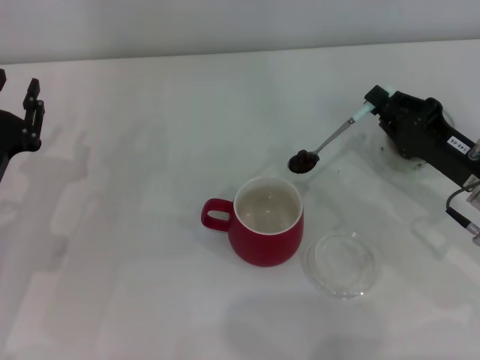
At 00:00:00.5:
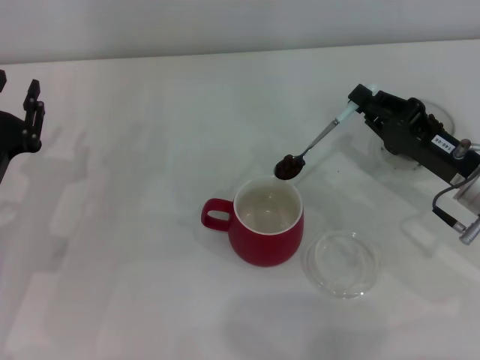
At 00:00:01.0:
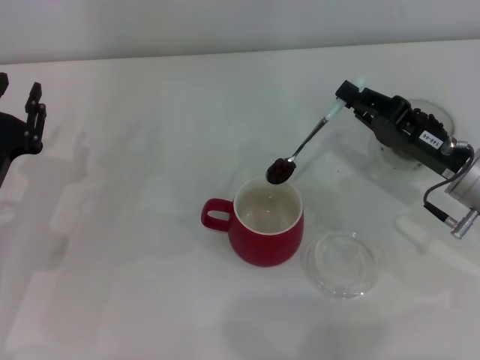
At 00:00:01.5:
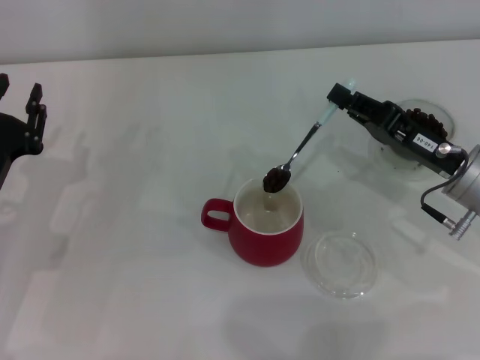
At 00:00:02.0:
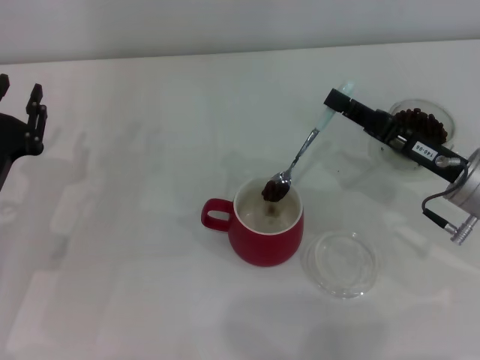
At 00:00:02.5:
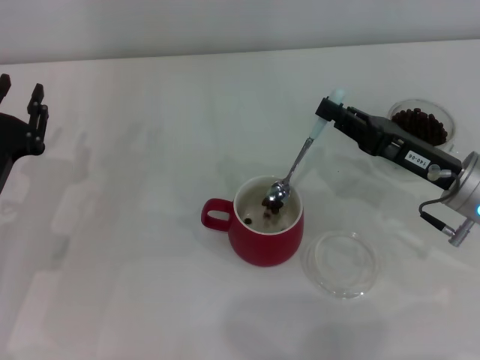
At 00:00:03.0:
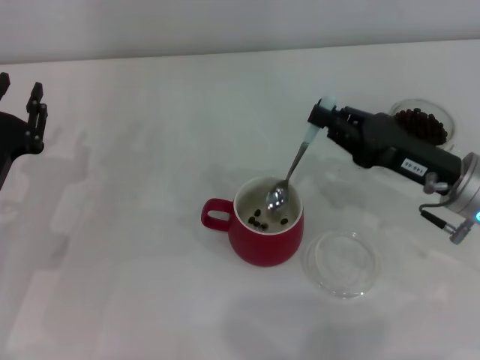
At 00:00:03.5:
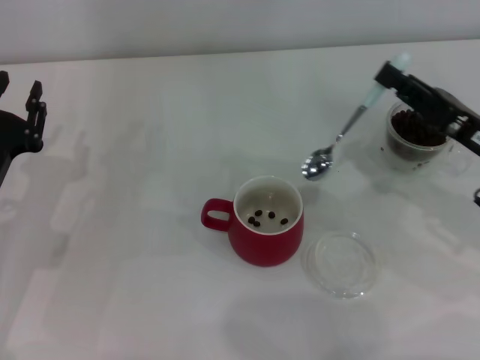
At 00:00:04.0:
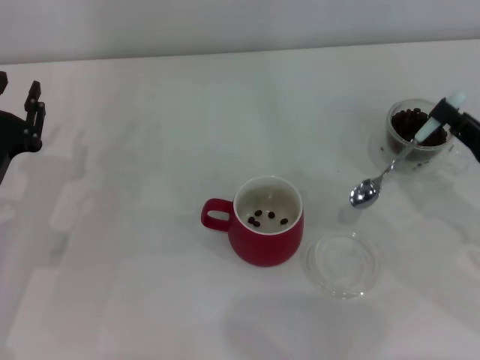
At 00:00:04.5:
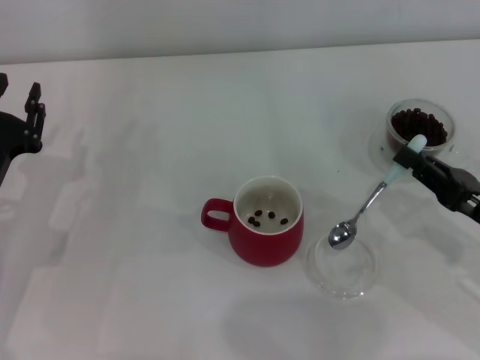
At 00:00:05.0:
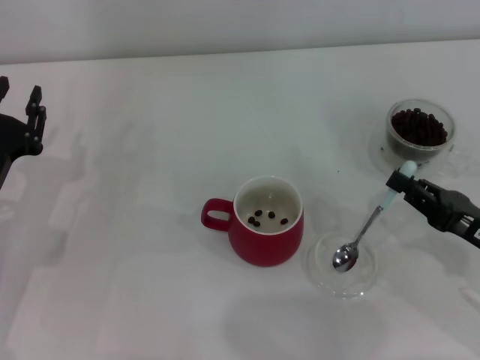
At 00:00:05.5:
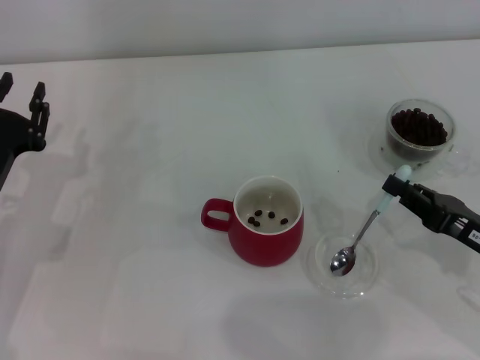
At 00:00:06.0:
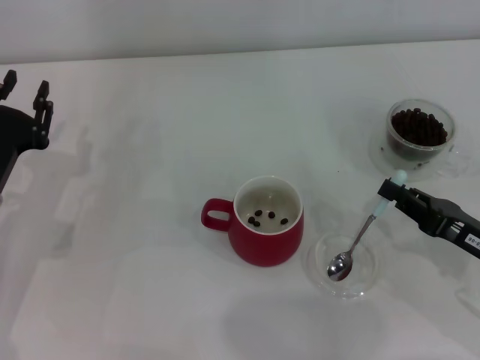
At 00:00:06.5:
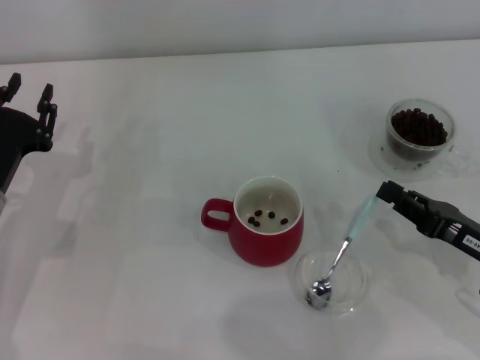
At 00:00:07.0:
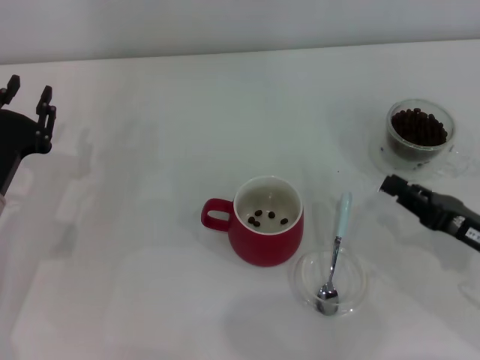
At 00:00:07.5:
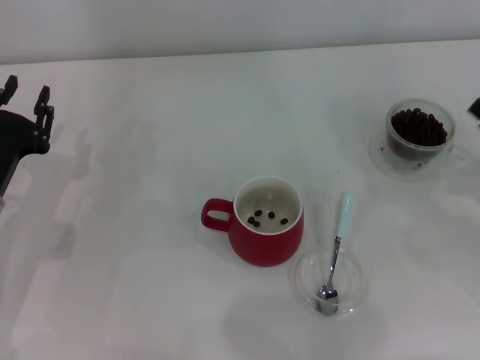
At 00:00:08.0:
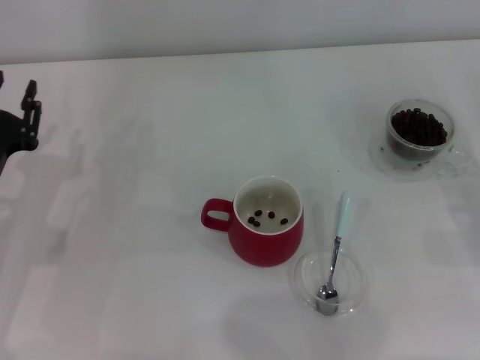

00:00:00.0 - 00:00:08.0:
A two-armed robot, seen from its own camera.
Task of the whole recording: Use a blue spoon to take out the coffee beans from the glass and pour them into the red cup.
Step, 00:00:00.0 - 00:00:03.0: Scoop a spoonful of beans into the cup with the right gripper.
Step, 00:00:03.5 - 00:00:06.5: Place the spoon back in its original place with the right gripper.
00:00:02.0 - 00:00:04.0: The right gripper heads to the right and backward, covering about 10 cm.
00:00:04.0 - 00:00:06.0: The right gripper ends up about 5 cm from where it was.
00:00:06.0 - 00:00:08.0: The right gripper heads to the right, covering about 10 cm.

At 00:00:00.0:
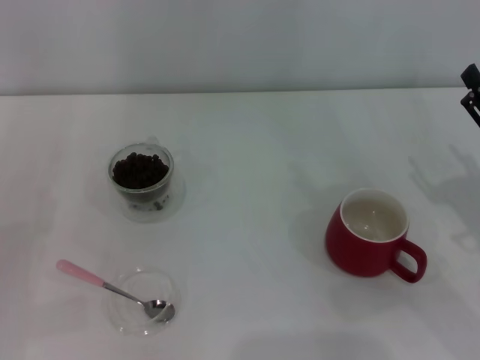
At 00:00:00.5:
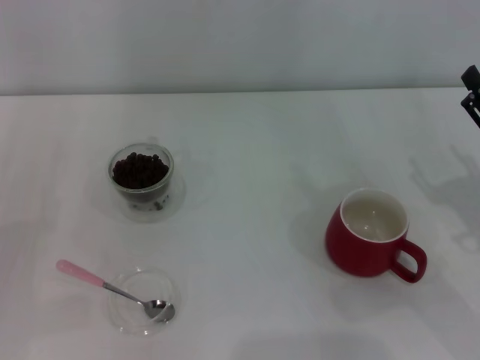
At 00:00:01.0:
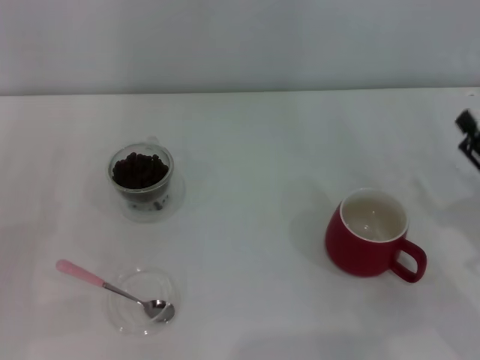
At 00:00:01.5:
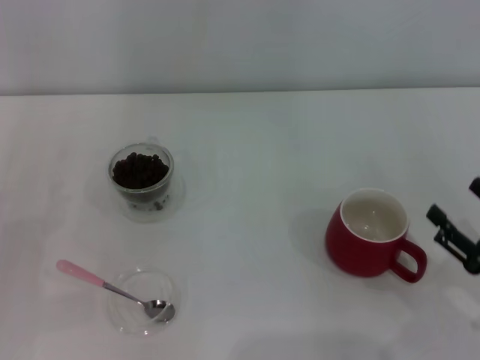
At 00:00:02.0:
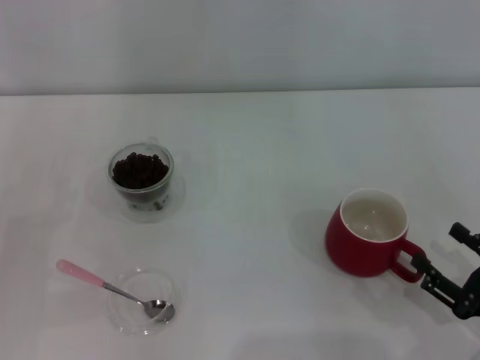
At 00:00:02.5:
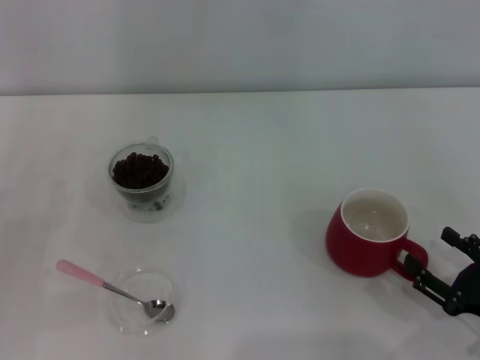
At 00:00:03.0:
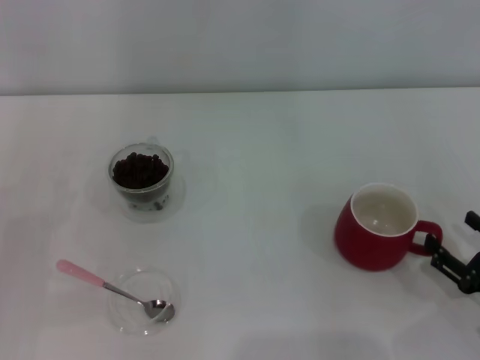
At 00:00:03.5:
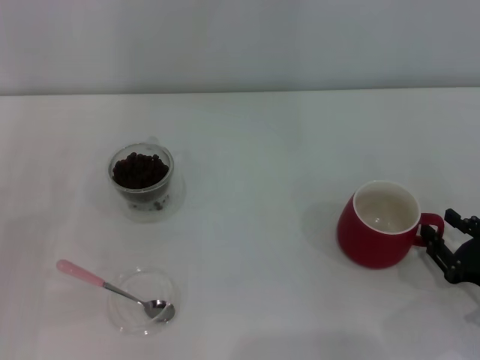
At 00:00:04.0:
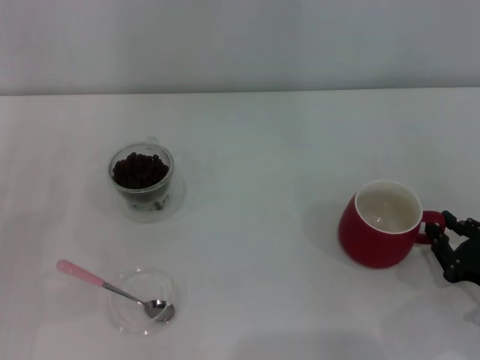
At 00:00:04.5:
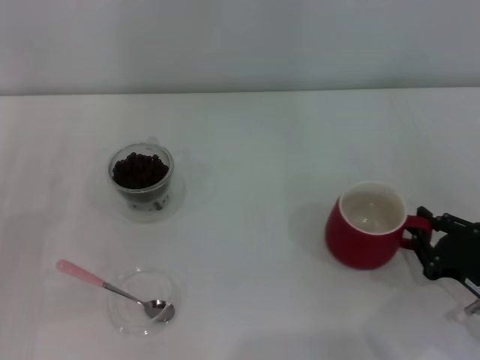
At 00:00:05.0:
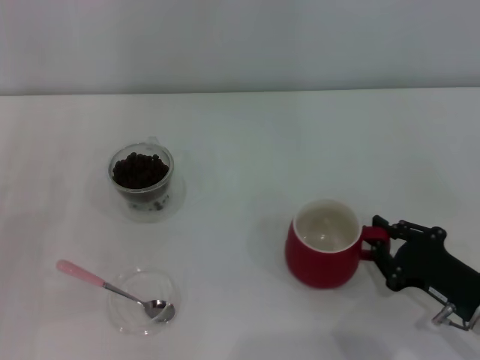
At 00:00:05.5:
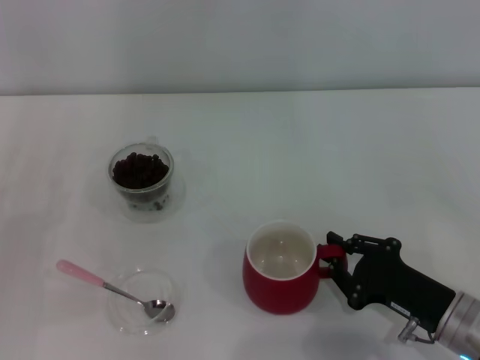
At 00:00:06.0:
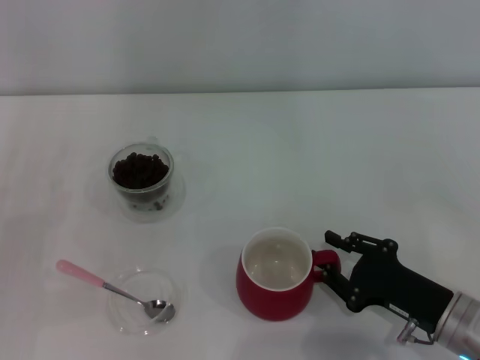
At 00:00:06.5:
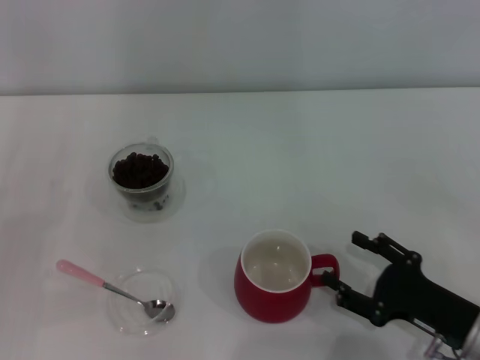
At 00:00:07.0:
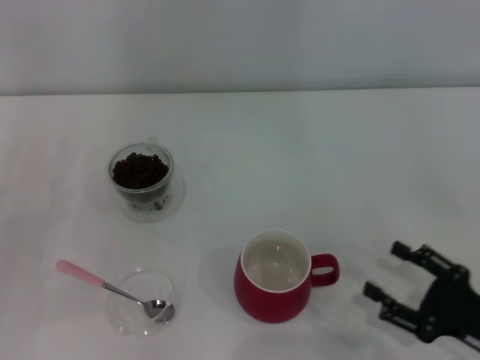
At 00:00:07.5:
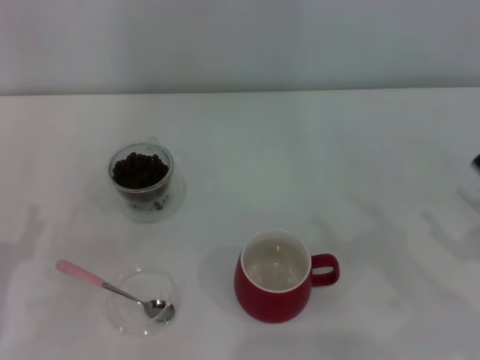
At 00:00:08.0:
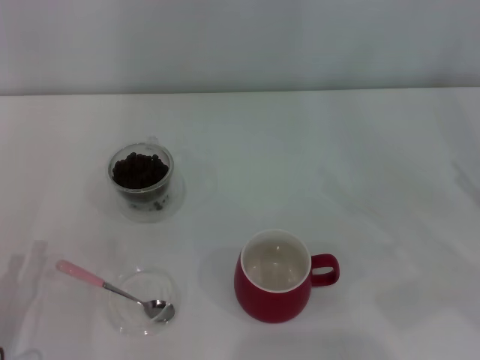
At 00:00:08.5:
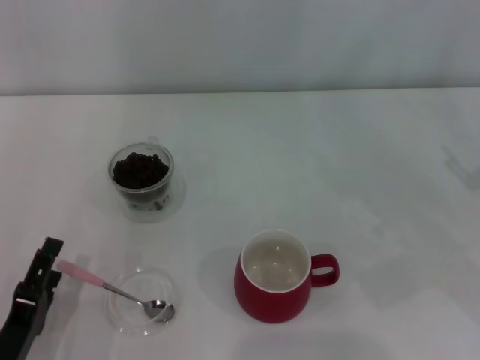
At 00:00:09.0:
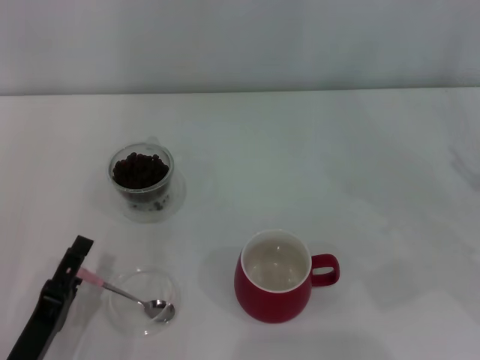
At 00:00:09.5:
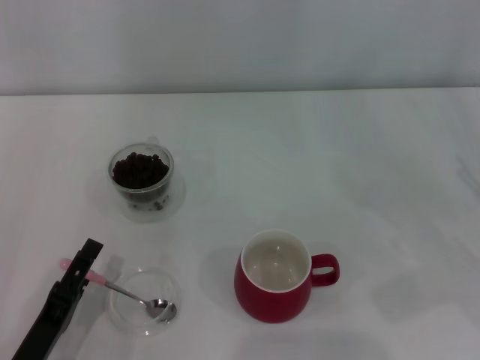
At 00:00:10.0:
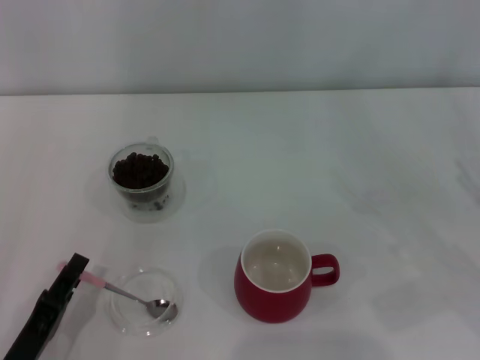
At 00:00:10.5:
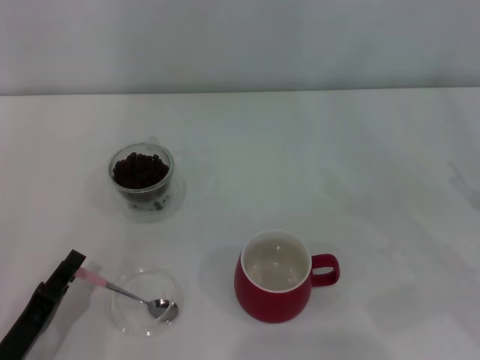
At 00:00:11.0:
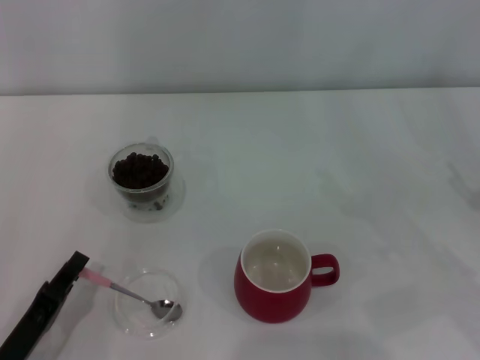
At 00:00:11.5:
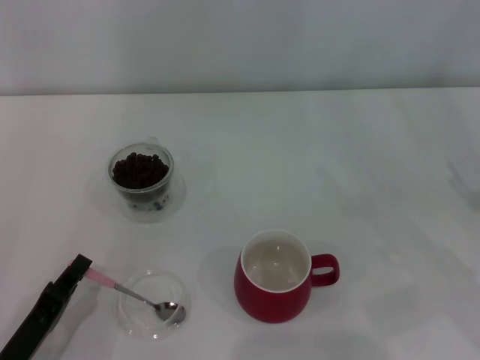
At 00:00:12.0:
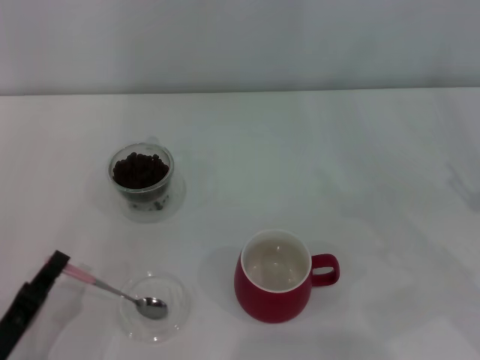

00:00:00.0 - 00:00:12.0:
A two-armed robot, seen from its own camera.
Task of the whole recording: Use a pink spoon to take out the coffee beans from the glass and pour them into the red cup.
Step, 00:00:00.0 - 00:00:06.5: Move the cup to the center of view with the left gripper.
00:00:00.0 - 00:00:02.0: The right gripper travels backward and downward by roughly 10 cm.
00:00:02.0 - 00:00:04.0: The right gripper closes up.
00:00:04.0 - 00:00:06.0: The right gripper goes about 10 cm to the left.
00:00:06.0 - 00:00:08.0: The left gripper is displaced backward and to the right by approximately 10 cm. Meanwhile the right gripper travels to the right and upward by roughly 15 cm, and opens.
00:00:08.0 - 00:00:10.0: There are only small adjustments of the grippers.
00:00:10.0 - 00:00:12.0: The left gripper closes its fingers.

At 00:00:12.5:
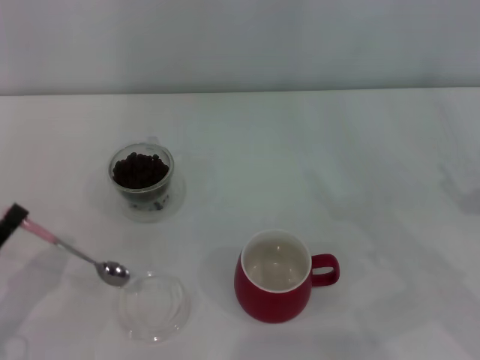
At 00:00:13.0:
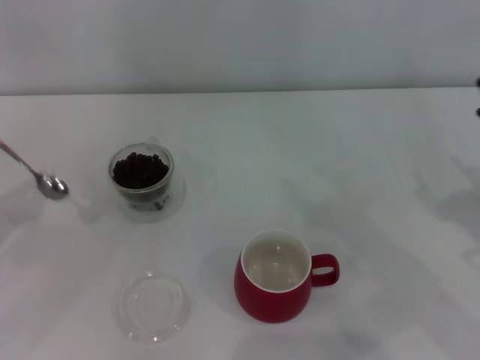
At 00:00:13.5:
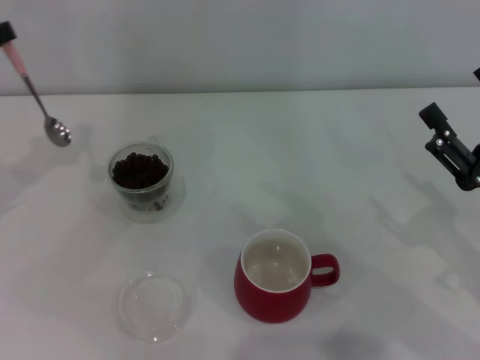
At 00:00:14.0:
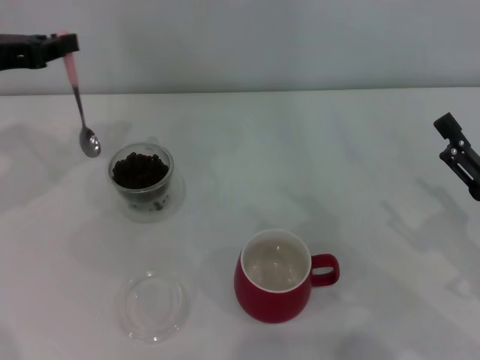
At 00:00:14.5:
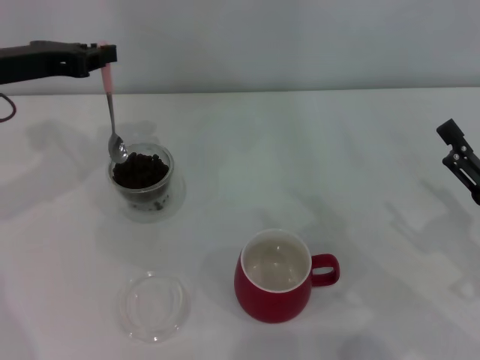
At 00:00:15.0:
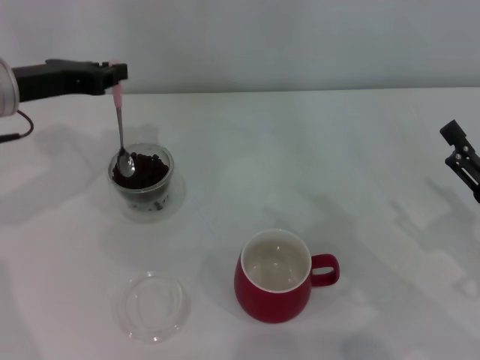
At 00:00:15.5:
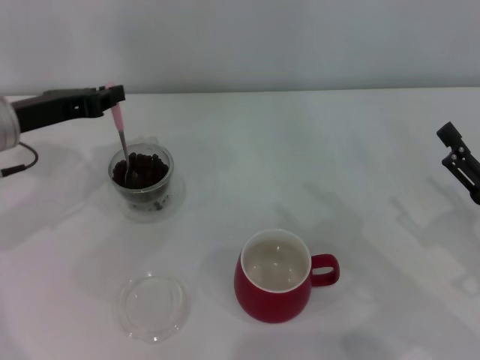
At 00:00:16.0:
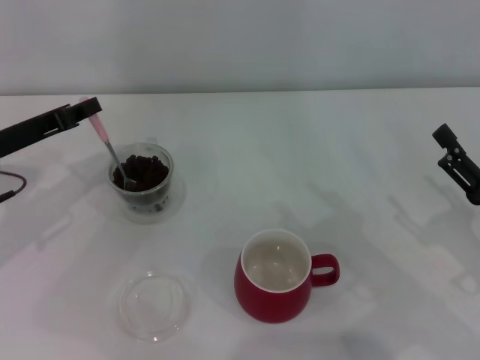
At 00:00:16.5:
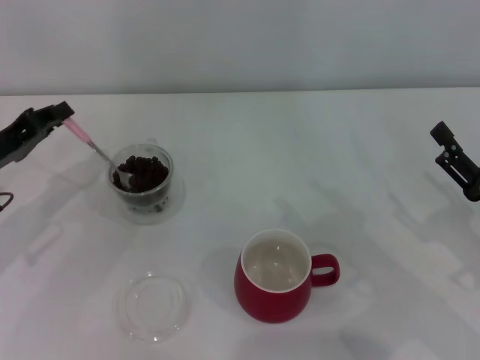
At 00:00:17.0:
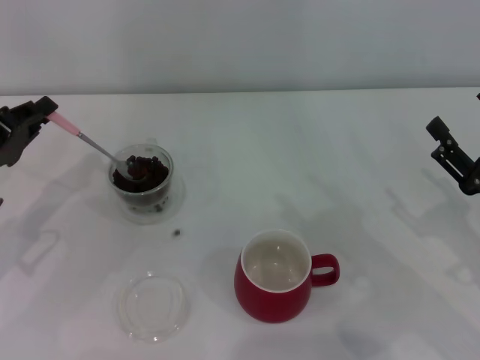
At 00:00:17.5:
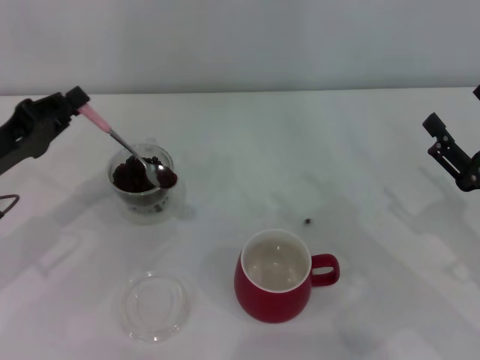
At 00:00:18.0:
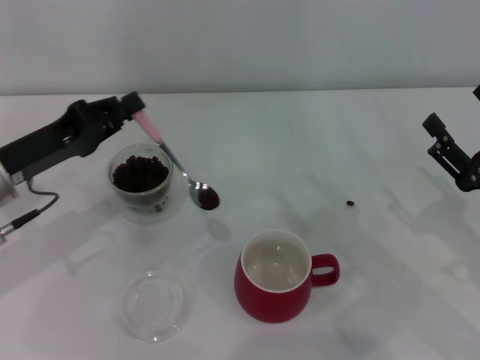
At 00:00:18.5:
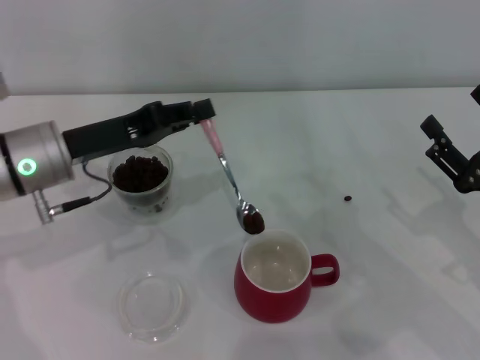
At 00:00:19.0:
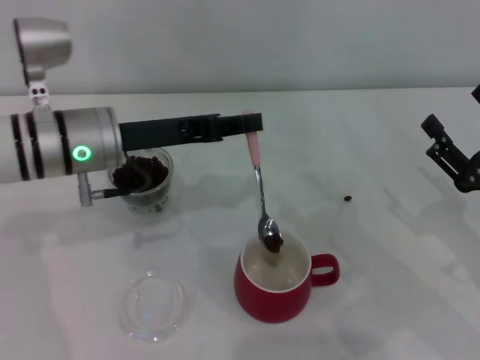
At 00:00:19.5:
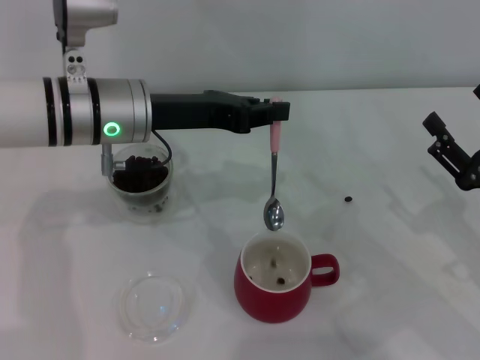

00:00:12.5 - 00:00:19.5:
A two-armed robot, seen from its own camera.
Task of the whole recording: Use a pink spoon to take out the coffee beans from the glass and pour them into the red cup.
00:00:12.5 - 00:00:14.5: The left gripper heads forward and upward, covering about 30 cm.
00:00:14.5 - 00:00:16.0: The left gripper heads downward, covering roughly 10 cm.
00:00:17.5 - 00:00:19.5: The left gripper moves to the right and upward, about 15 cm.
